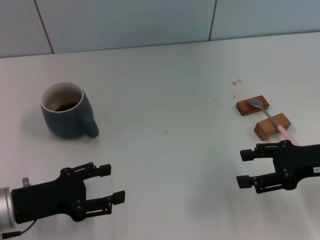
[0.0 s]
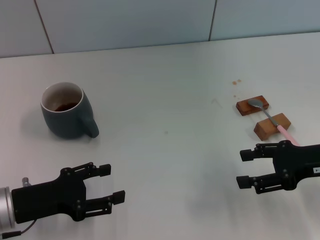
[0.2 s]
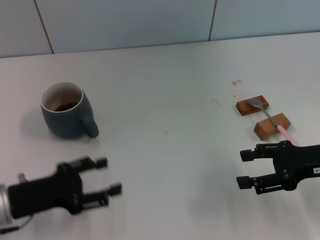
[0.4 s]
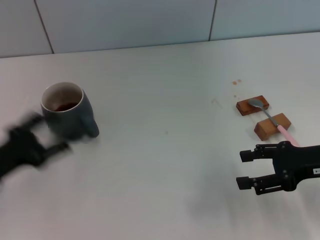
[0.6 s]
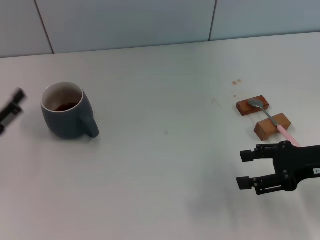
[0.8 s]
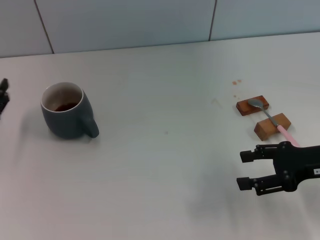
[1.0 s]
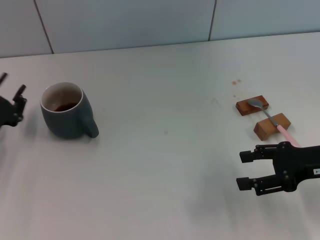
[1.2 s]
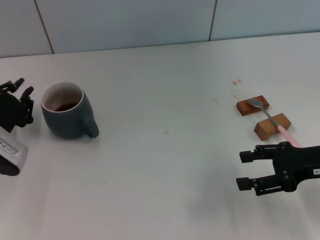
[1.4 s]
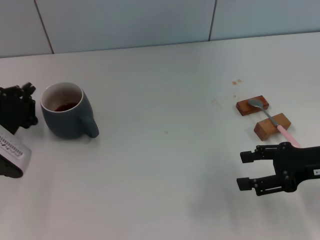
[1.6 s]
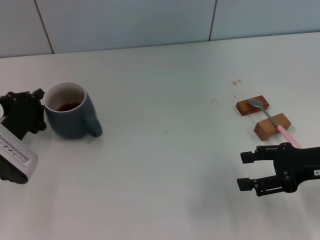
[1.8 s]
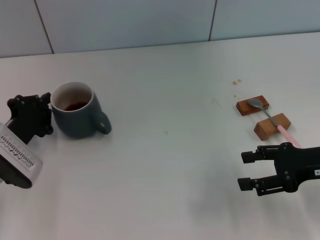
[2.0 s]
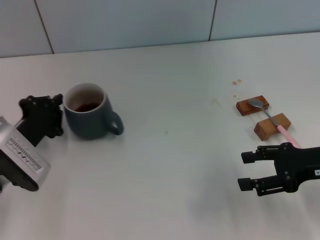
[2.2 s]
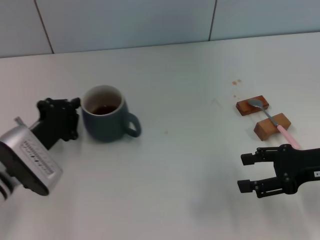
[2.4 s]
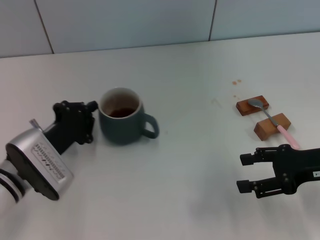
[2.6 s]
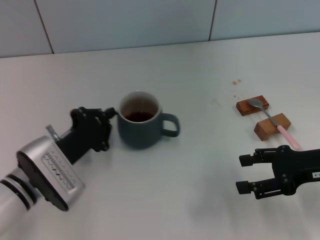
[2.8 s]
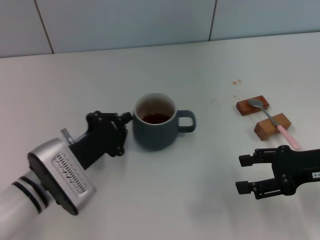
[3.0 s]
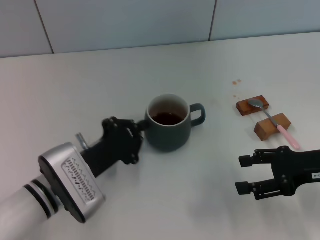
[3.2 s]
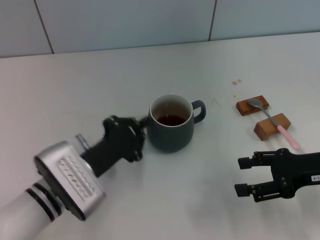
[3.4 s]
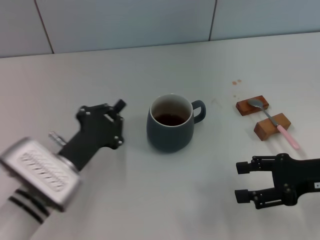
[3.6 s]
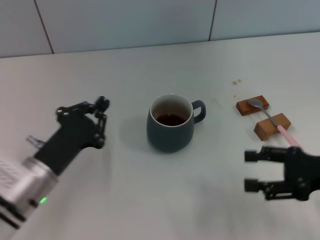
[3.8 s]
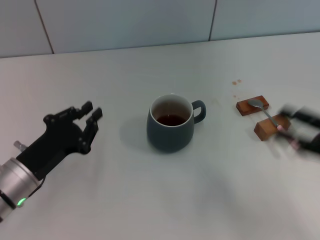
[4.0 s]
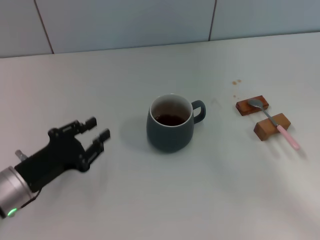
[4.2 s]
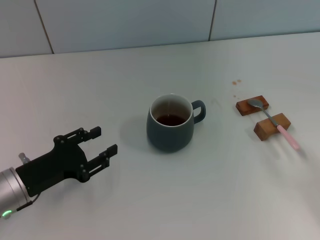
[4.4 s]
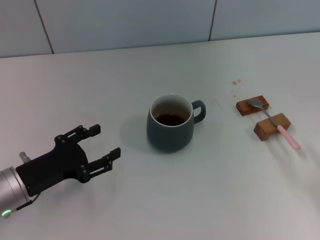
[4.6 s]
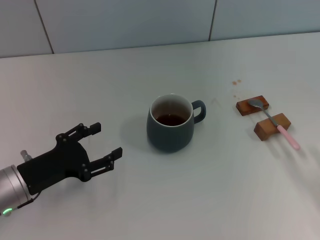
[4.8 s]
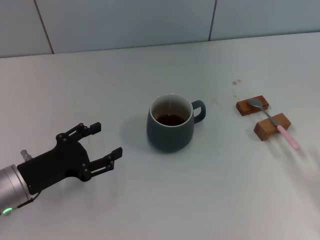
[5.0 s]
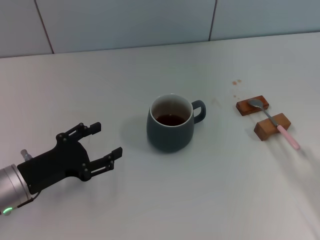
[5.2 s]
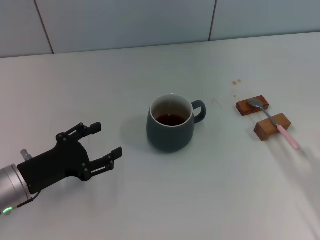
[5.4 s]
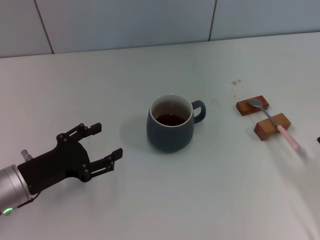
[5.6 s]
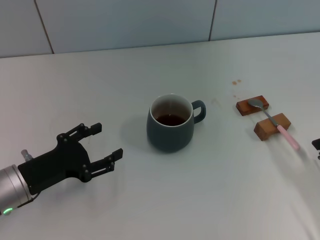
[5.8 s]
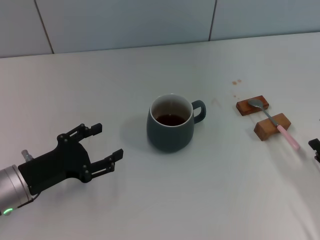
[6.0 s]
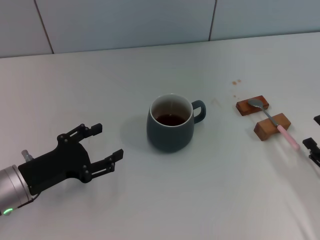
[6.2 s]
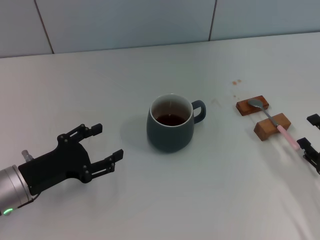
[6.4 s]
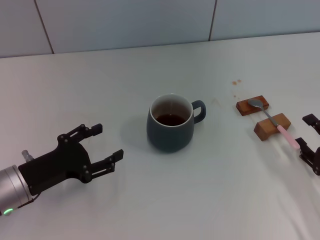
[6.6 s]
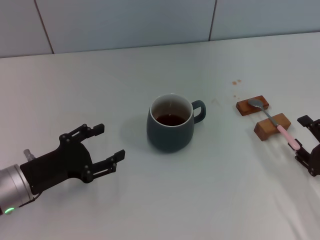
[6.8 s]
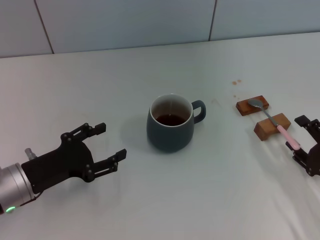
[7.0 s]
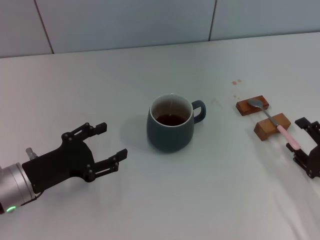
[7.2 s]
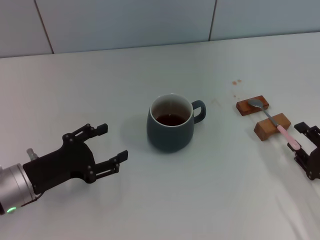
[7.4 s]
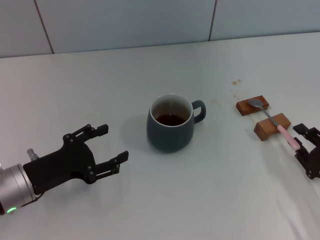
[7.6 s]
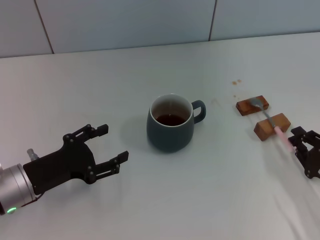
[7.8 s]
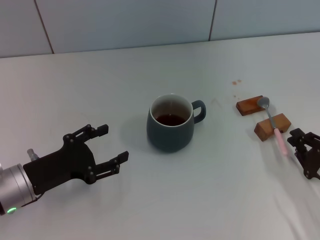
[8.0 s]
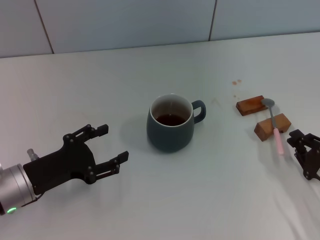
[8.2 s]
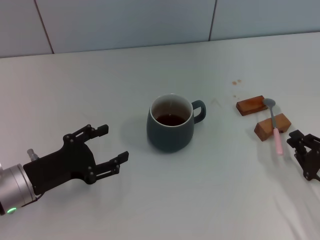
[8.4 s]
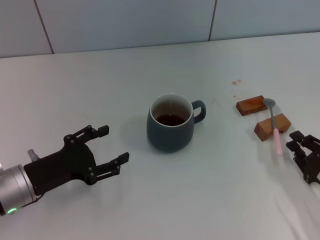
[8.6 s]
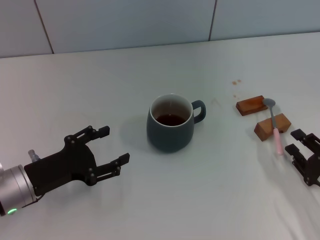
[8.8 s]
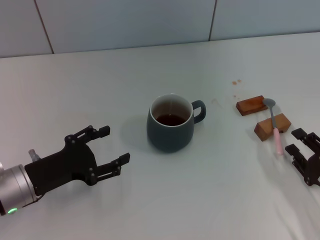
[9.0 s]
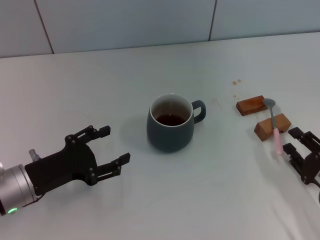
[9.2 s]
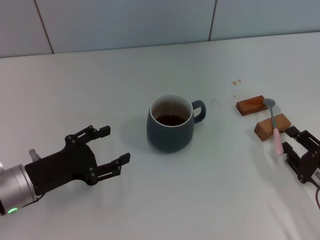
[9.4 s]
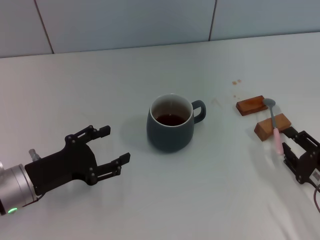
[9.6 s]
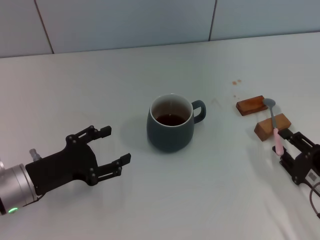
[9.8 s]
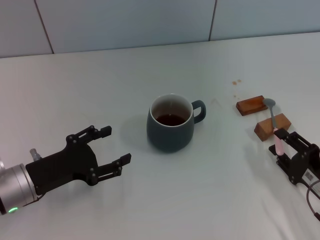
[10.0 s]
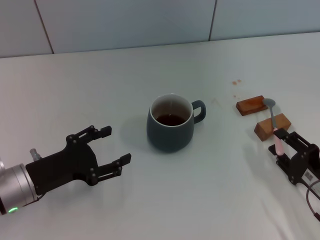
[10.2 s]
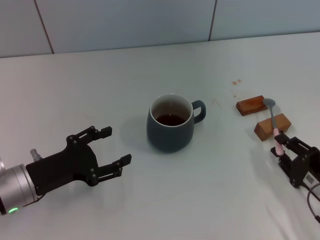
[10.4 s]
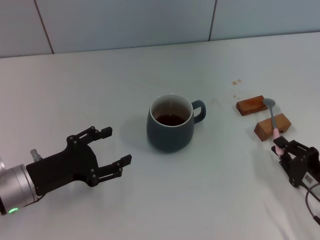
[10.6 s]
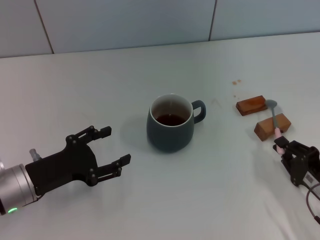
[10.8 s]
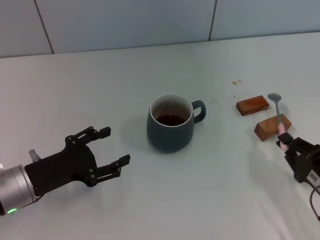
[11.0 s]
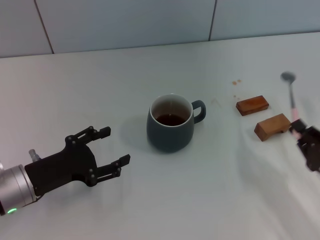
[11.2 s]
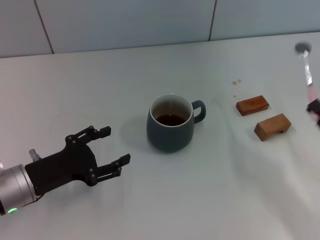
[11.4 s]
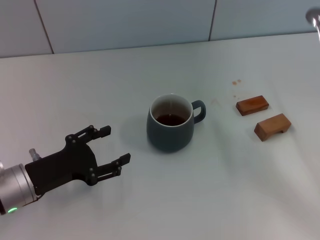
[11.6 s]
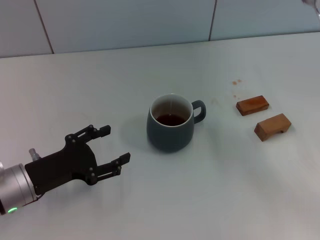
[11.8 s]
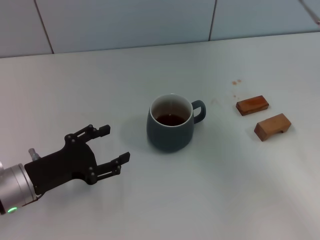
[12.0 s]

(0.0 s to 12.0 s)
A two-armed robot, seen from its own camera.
Task of the whole recording: Move the grey cup to the center, lift the pink spoon, stir it three times in the cup, and put the spoon into the cup.
Step, 0.0 s - 5.8 s: Move the cup with coffee to the center of view with the left gripper.
Step, 6.0 s - 11.2 s: Pick up the spoon with the right gripper.
0.0 s - 1.6 s: The left gripper is displaced forward by approximately 5 cm, and closes its fingers.
1.6 s - 3.0 s: The left gripper is displaced to the right by approximately 10 cm.
3.0 s - 4.4 s: The right gripper shifts about 15 cm backward and to the right, while the left gripper heads to the left, covering approximately 5 cm, and opens.
4.4 s - 6.0 s: The left gripper opens up; the right gripper moves to the left and downward, approximately 10 cm.
6.0 s - 7.6 s: The grippers make only small movements.
7.6 s - 9.0 s: Neither gripper changes place.
9.0 s - 10.4 s: The grippers make only small movements.
10.4 s - 12.0 s: The right gripper is displaced upward and to the right by roughly 25 cm, and closes up.

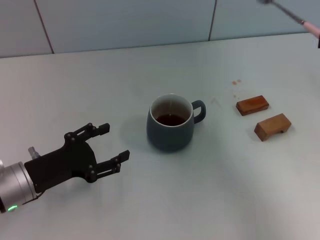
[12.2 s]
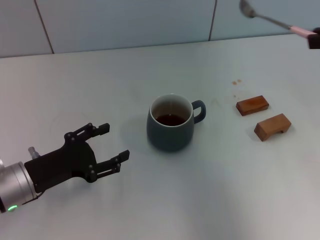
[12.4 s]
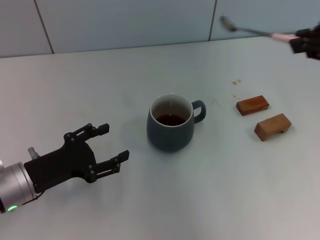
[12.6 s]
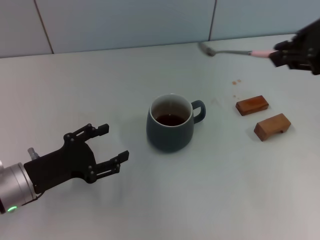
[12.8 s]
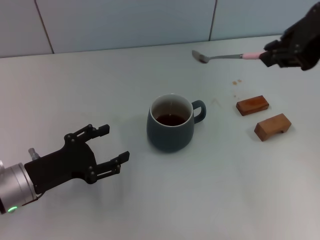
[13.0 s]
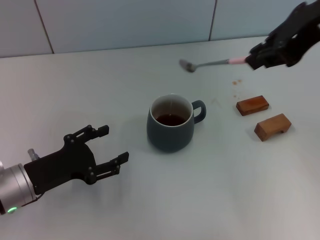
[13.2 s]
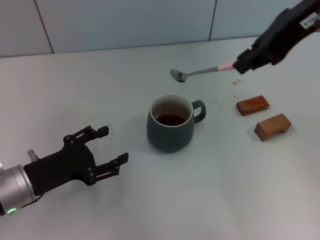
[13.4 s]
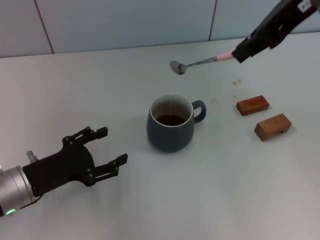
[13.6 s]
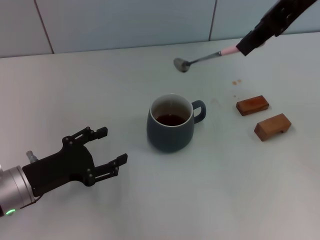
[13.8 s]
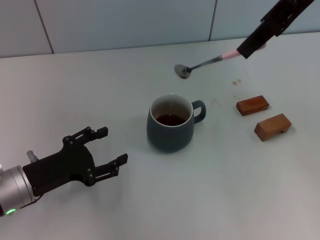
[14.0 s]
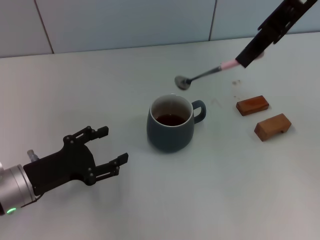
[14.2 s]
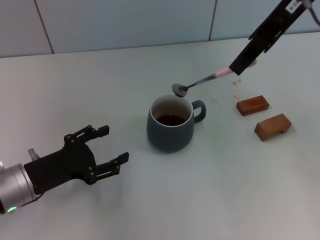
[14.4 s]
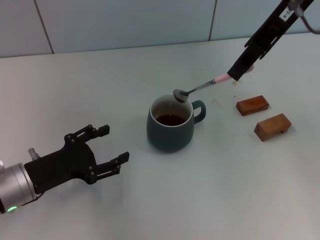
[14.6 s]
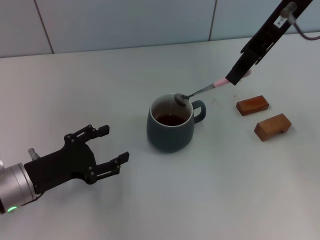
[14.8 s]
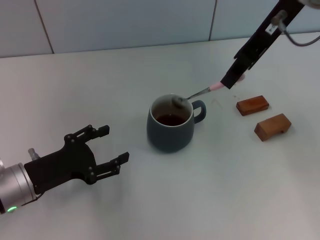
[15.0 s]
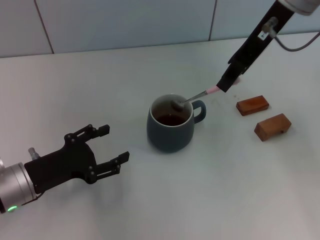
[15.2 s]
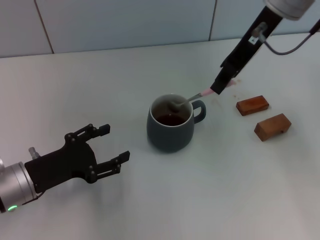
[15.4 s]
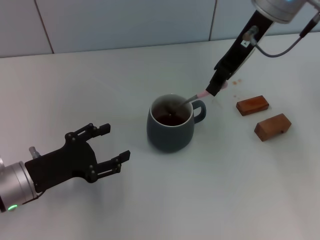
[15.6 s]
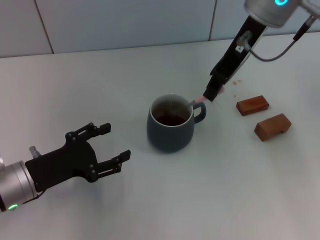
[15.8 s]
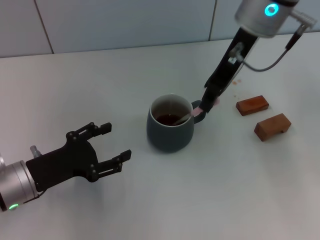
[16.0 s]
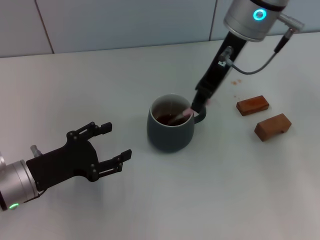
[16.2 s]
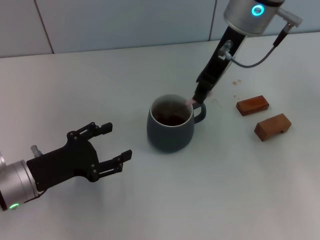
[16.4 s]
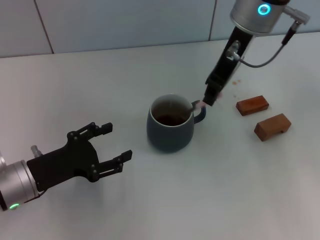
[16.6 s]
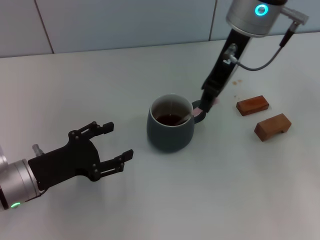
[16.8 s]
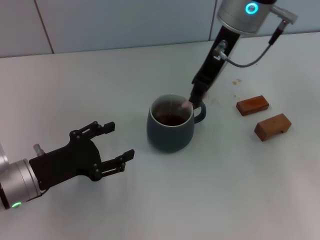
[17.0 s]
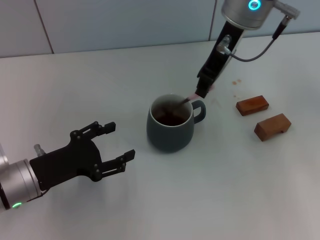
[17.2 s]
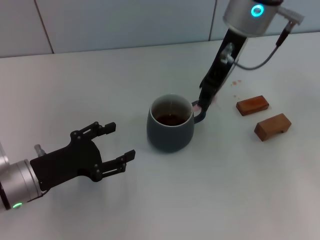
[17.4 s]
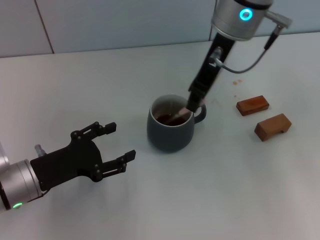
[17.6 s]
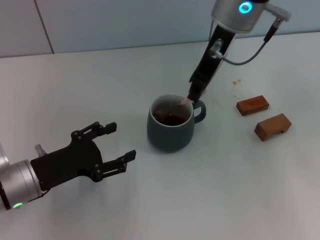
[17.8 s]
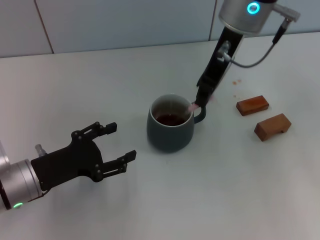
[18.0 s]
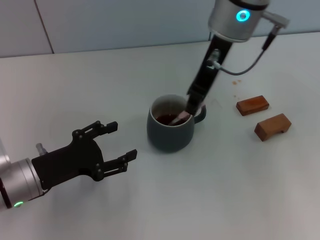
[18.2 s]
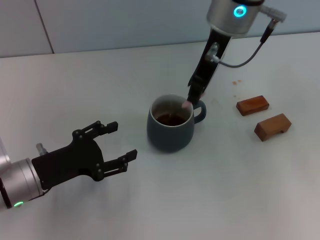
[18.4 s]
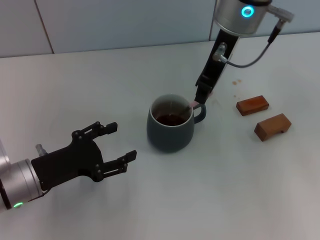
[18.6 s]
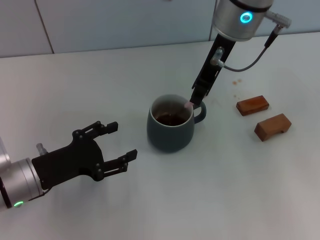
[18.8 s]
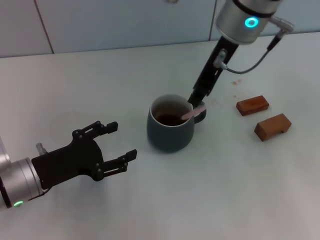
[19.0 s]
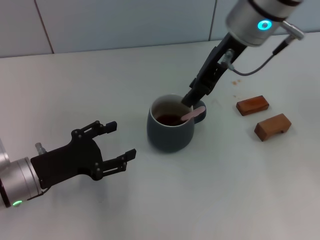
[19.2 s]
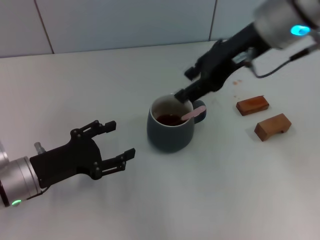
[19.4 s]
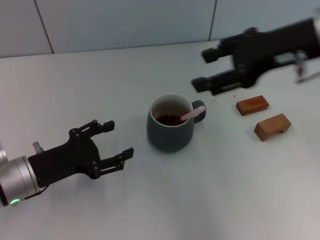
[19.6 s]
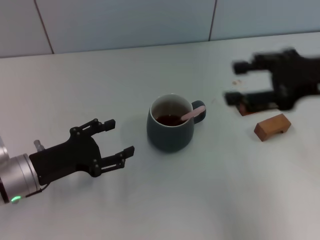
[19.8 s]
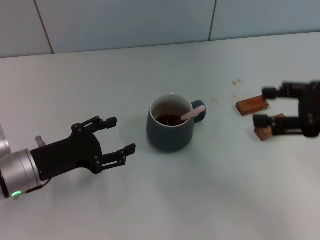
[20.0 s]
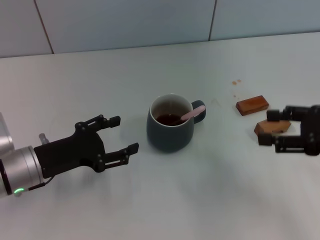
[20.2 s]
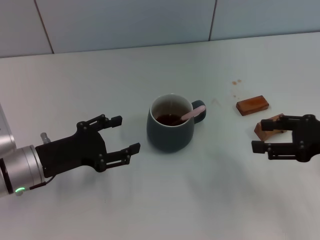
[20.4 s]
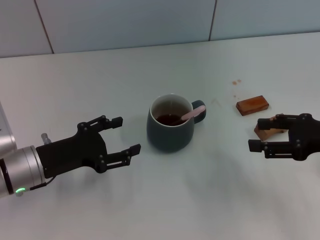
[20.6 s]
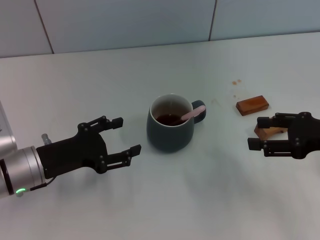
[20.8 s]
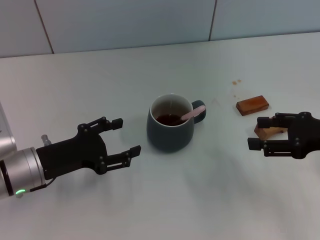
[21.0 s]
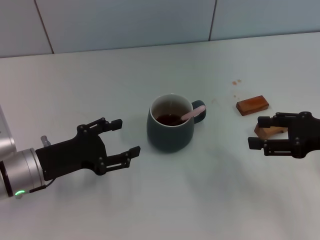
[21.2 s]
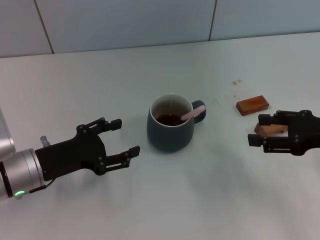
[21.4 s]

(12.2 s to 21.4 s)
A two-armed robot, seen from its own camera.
Task of the whole recording: Move the grey cup to the center, lift the pink spoon, stir it three times in the cup, and put the spoon into the cup.
Step, 12.2 s - 17.2 s: Stir the coffee in the cup with the right gripper.
12.2 s - 13.8 s: The right gripper heads to the left, upward and forward, covering roughly 20 cm.
13.8 s - 15.2 s: The right gripper moves downward, some 5 cm.
15.2 s - 16.8 s: The right gripper moves to the left, about 5 cm.
16.8 s - 18.4 s: There are only small adjustments of the grippers.
18.4 s - 19.8 s: The right gripper moves to the right and backward, about 20 cm, and opens up.
19.8 s - 21.4 s: The right gripper moves downward, about 10 cm.
